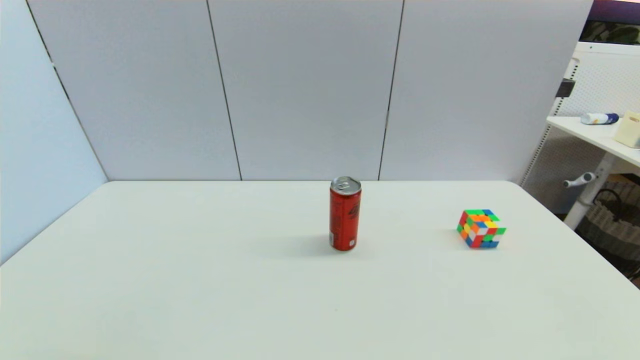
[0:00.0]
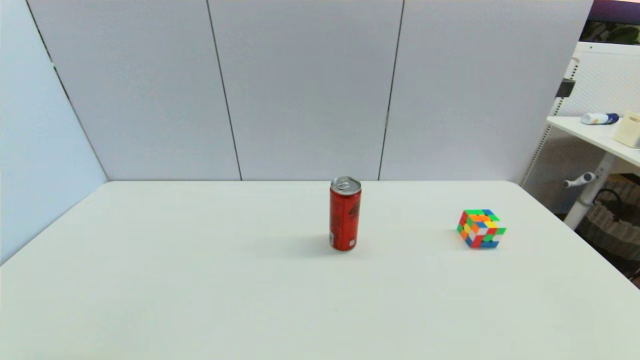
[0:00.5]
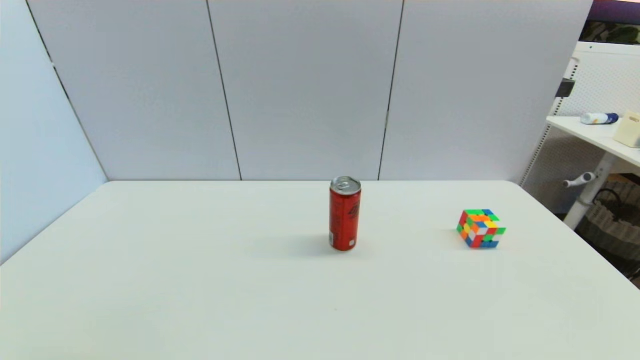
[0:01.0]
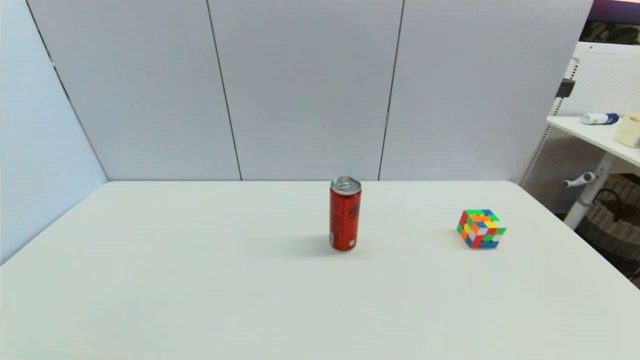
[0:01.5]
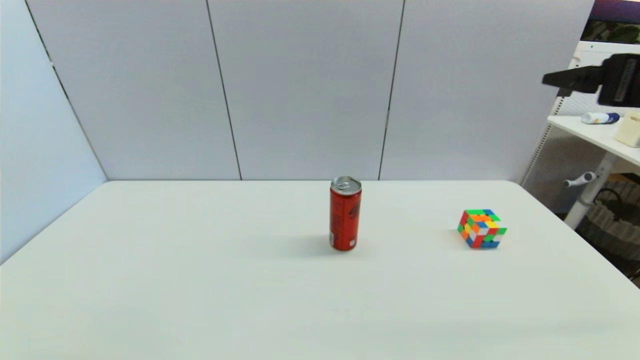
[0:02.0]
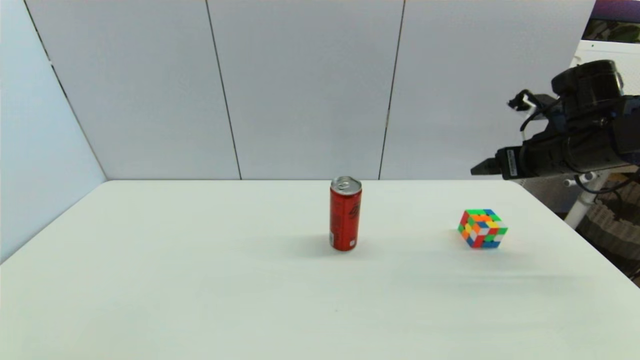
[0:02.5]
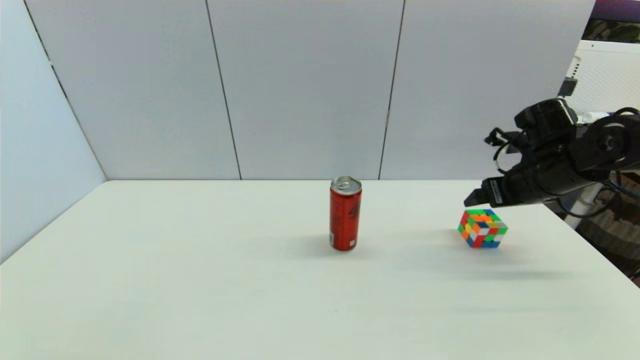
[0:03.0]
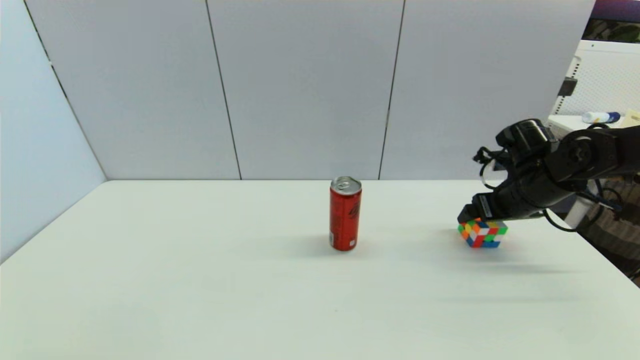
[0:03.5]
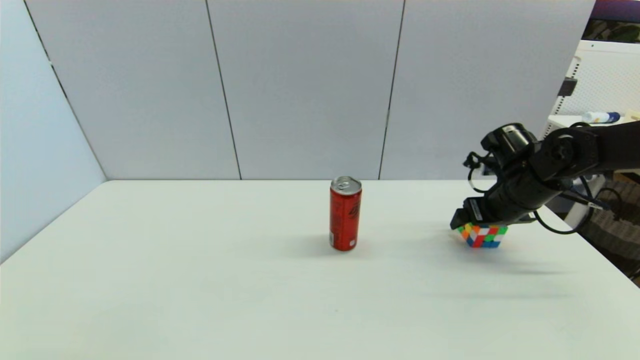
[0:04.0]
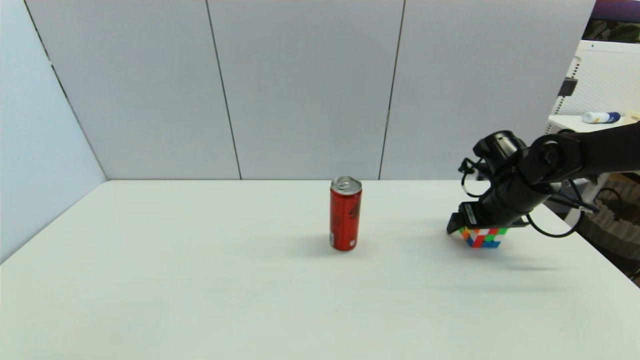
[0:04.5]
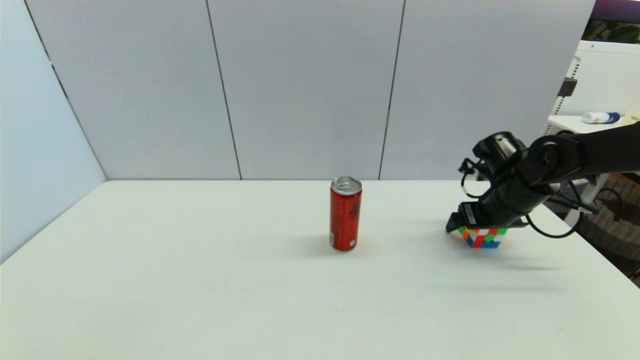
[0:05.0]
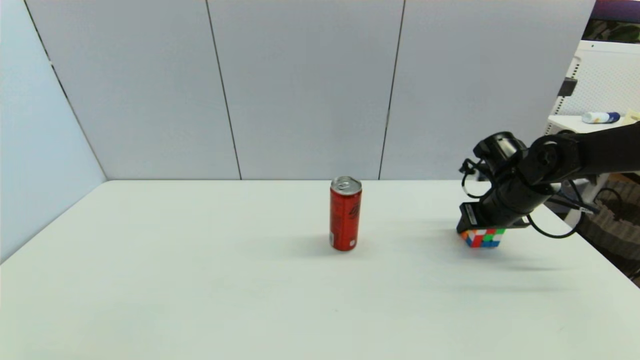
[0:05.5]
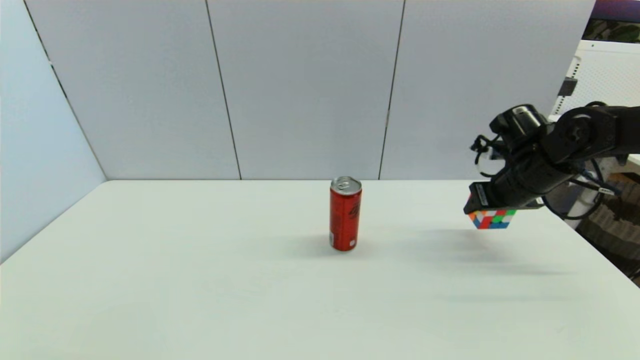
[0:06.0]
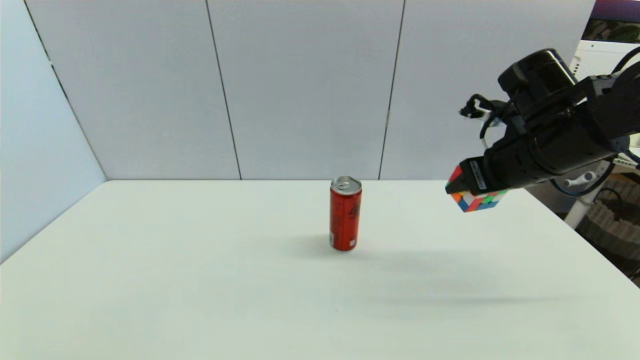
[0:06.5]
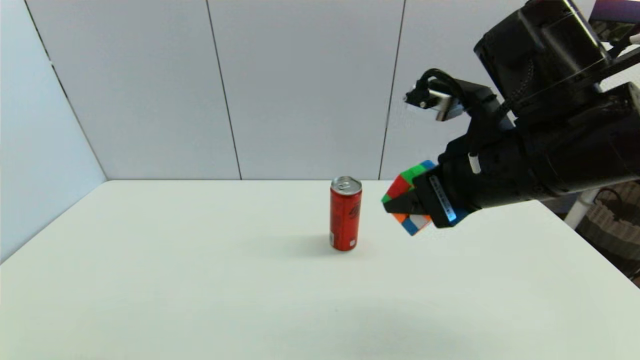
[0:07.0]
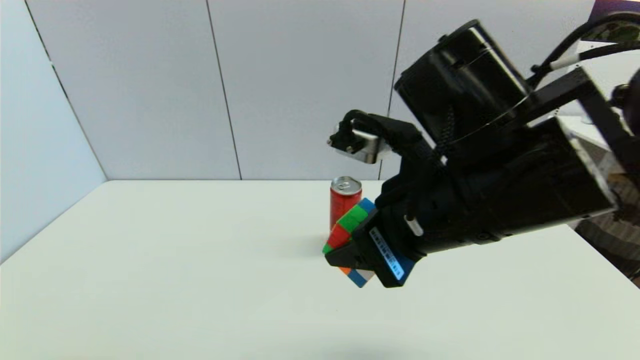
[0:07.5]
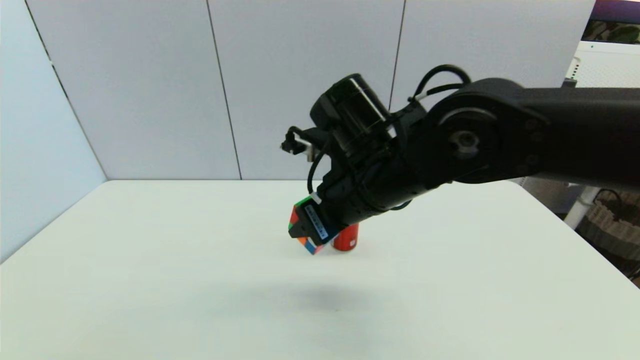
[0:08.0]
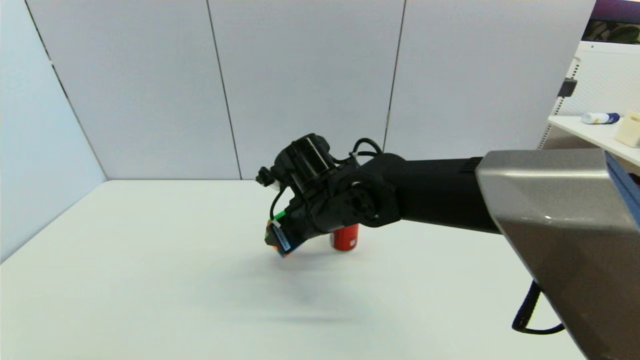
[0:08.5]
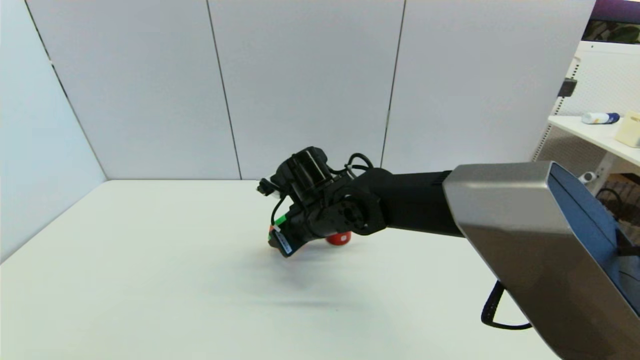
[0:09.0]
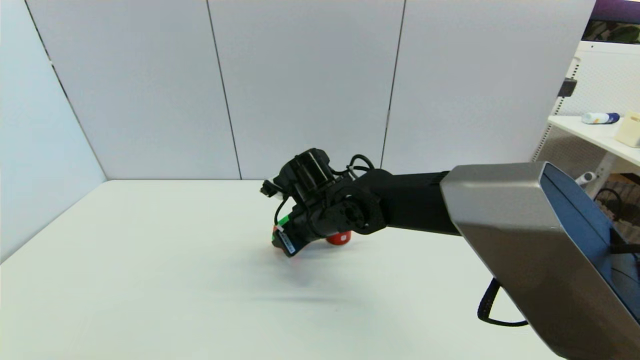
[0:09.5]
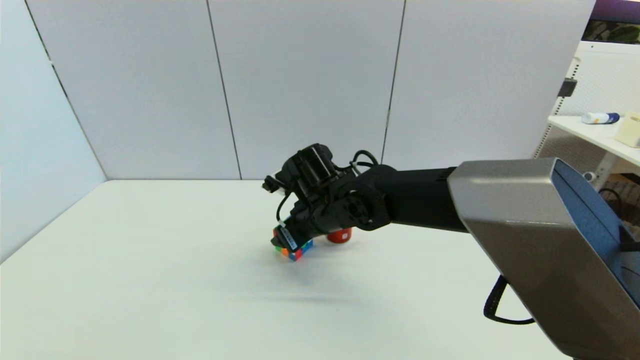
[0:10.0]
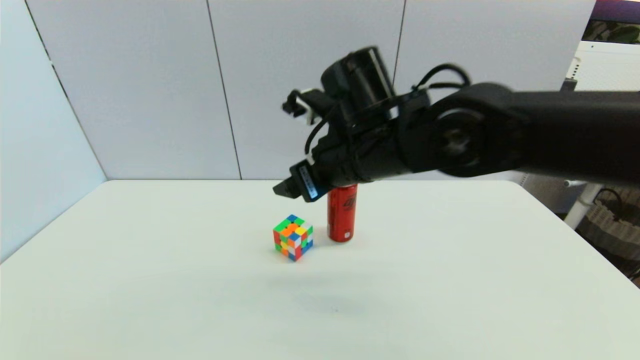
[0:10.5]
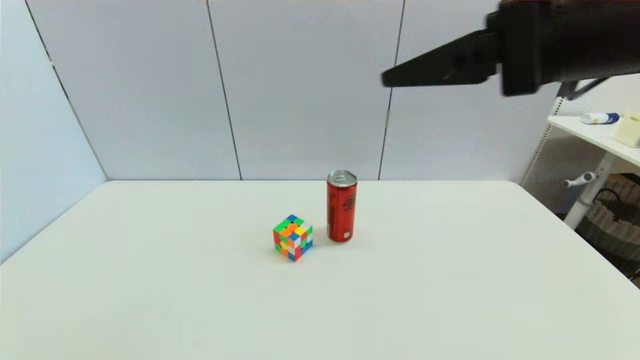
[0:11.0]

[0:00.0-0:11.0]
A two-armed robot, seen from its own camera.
Step, 0:02.0 to 0:05.5: Grasp the magic cube with right gripper.
Step, 0:06.0 to 0:10.0: Place the magic cube on the table with right gripper.
0:00.0 to 0:02.0: The right gripper travels upward and forward by about 35 cm.
0:02.0 to 0:03.5: The right gripper shifts approximately 20 cm downward and forward.
0:03.5 to 0:05.5: The right gripper closes its fingers.
0:05.5 to 0:07.5: The right gripper is displaced to the left, backward and upward by some 30 cm.
0:07.5 to 0:09.0: The right gripper goes some 25 cm forward, downward and to the left.
0:09.0 to 0:11.0: The right gripper moves upward, to the right and backward, roughly 35 cm, and opens its fingers.

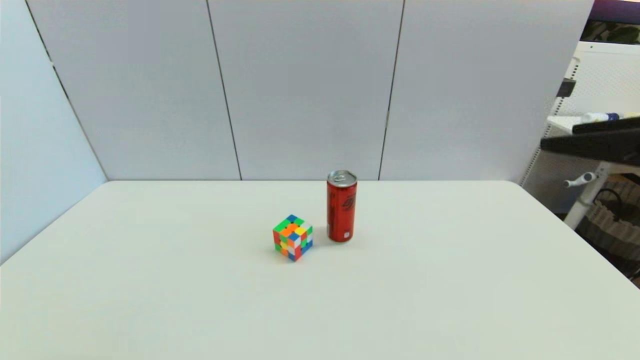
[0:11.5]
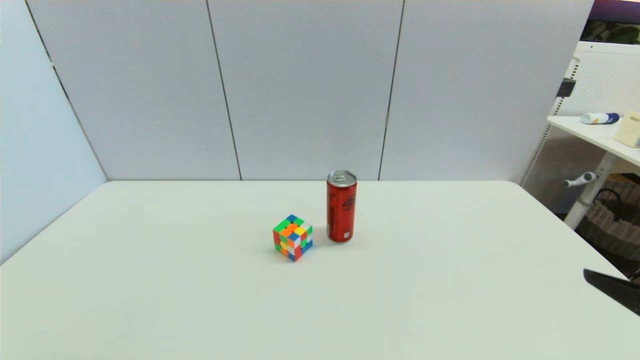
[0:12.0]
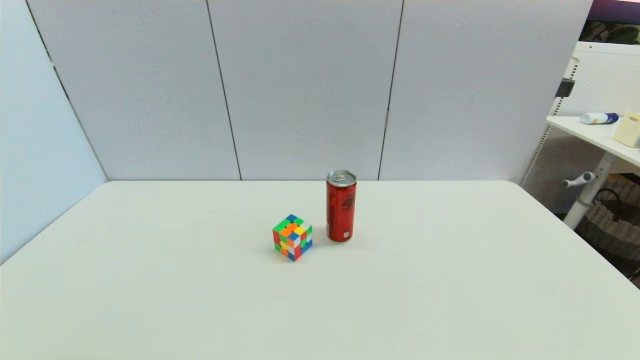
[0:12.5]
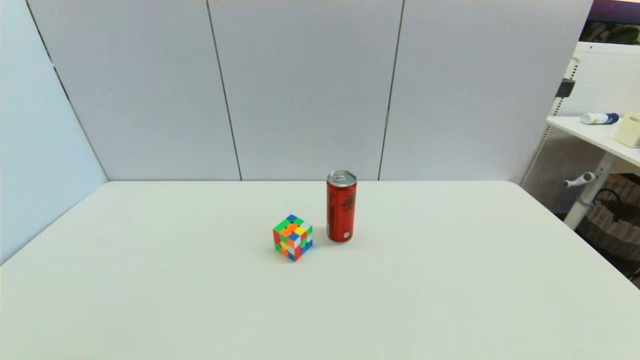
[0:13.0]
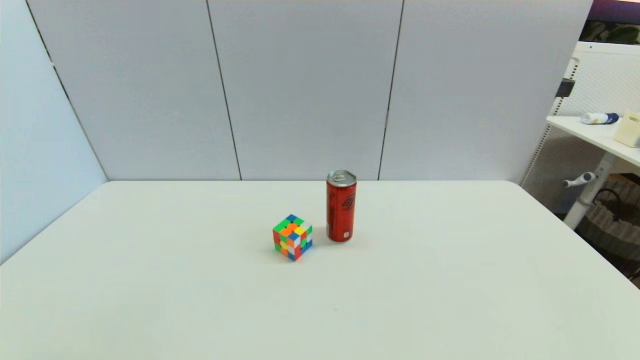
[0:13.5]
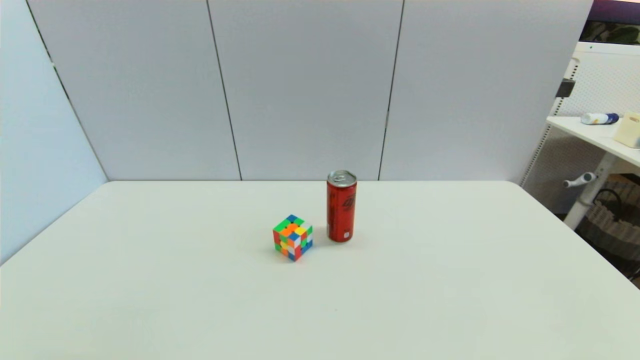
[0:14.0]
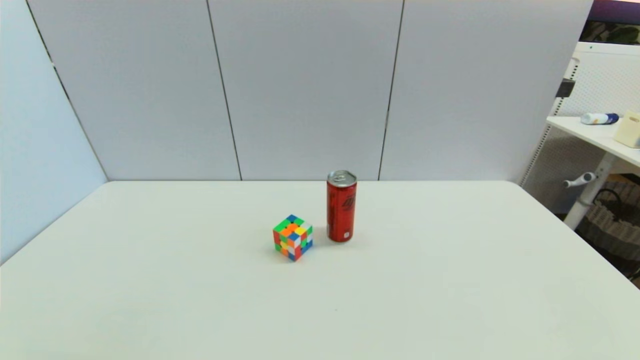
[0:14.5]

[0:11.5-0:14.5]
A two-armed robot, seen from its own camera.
0:11.5 to 0:13.0: The right gripper travels downward and backward by about 30 cm.
